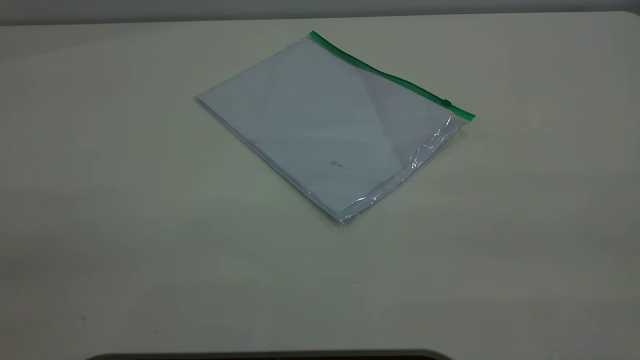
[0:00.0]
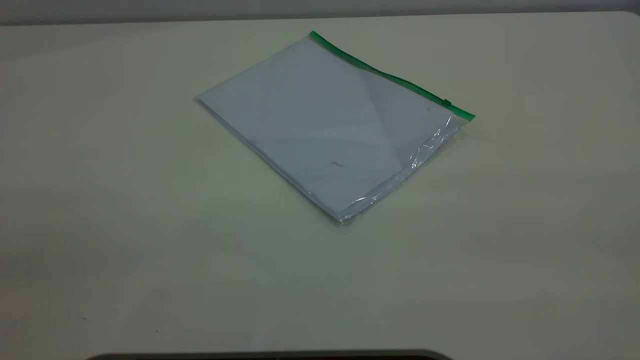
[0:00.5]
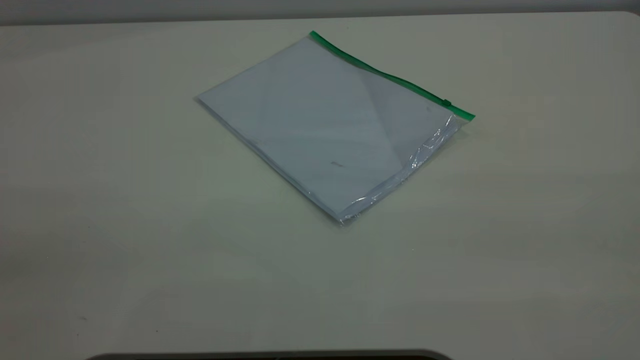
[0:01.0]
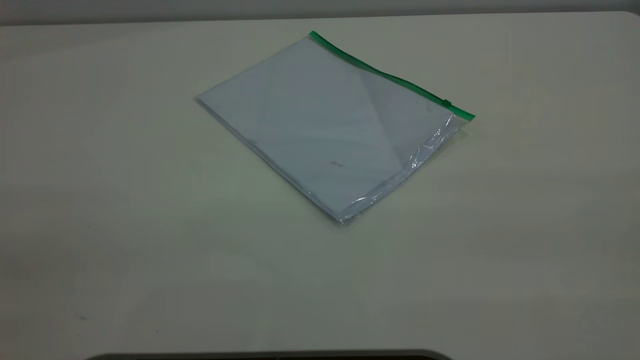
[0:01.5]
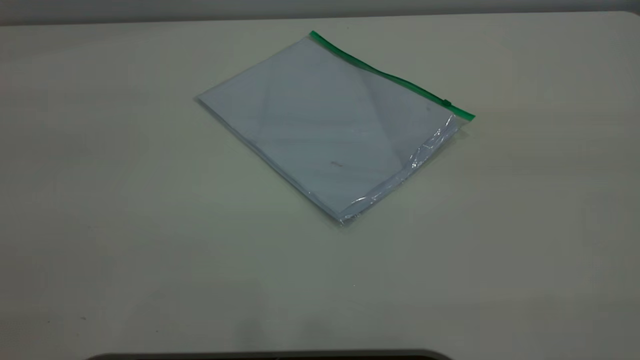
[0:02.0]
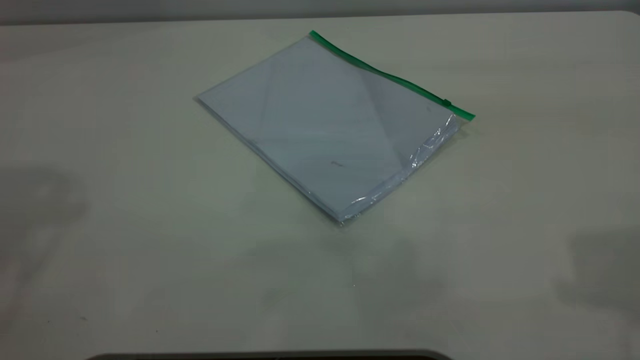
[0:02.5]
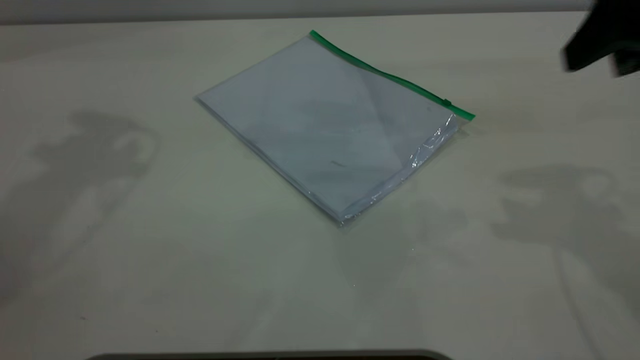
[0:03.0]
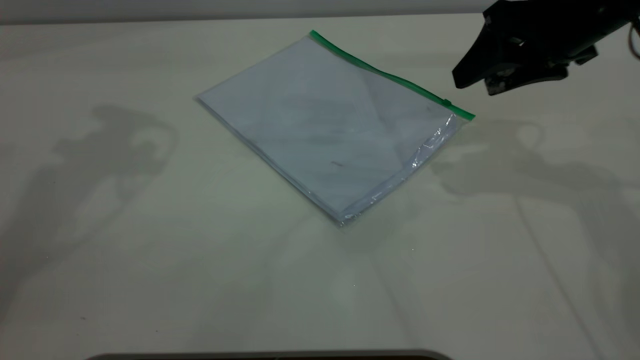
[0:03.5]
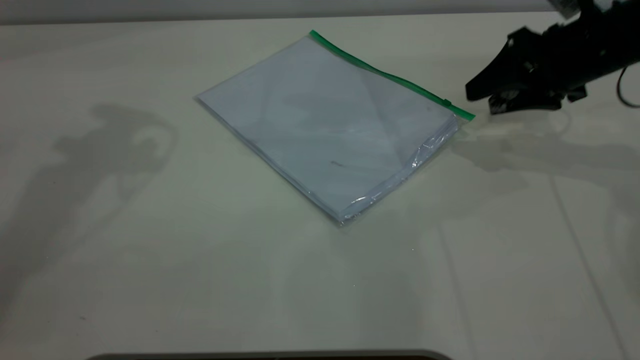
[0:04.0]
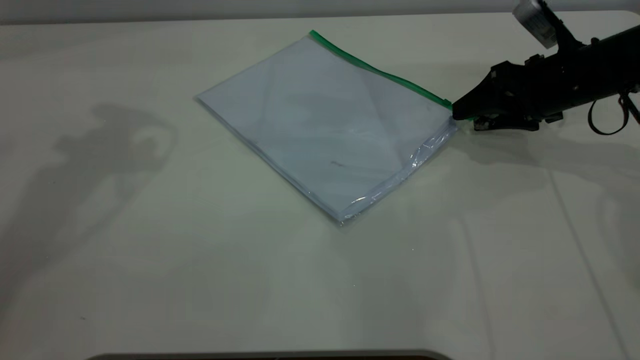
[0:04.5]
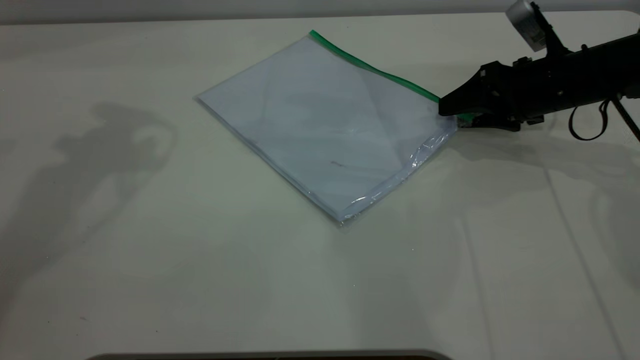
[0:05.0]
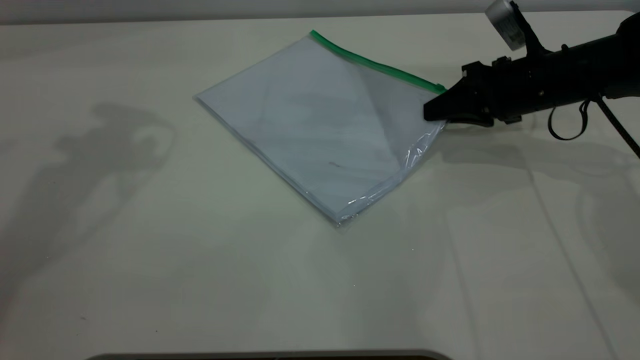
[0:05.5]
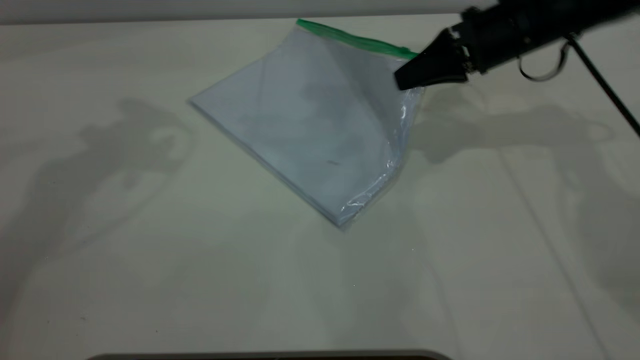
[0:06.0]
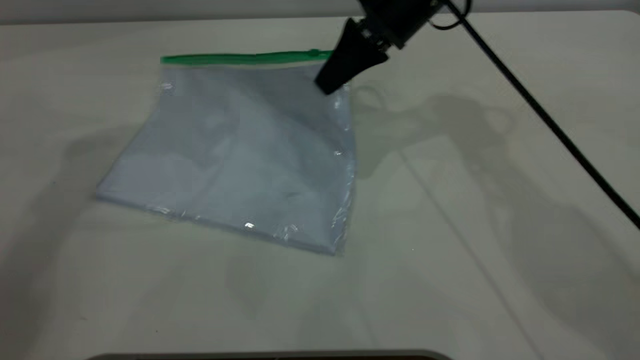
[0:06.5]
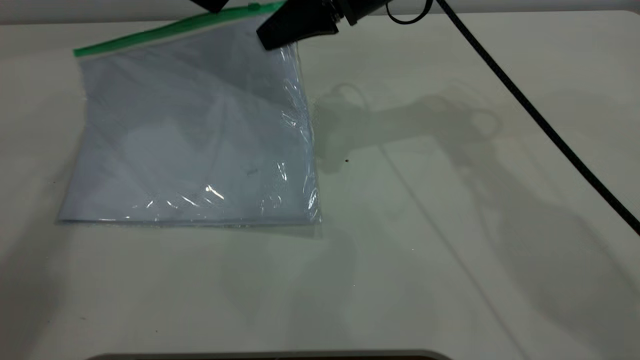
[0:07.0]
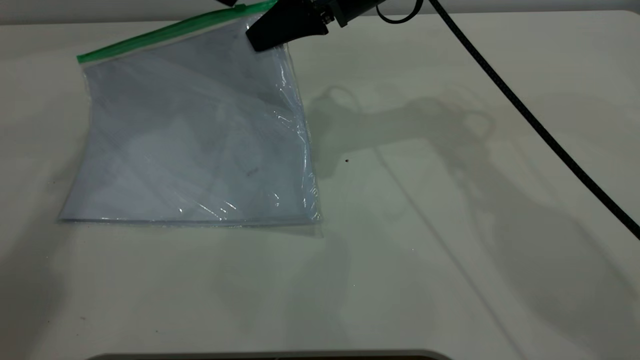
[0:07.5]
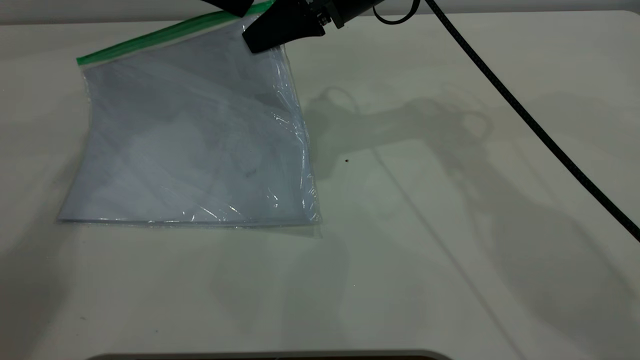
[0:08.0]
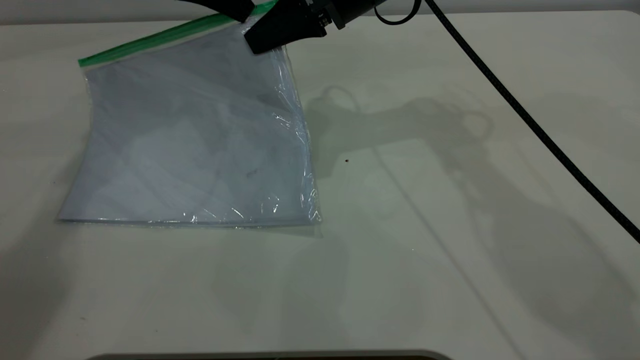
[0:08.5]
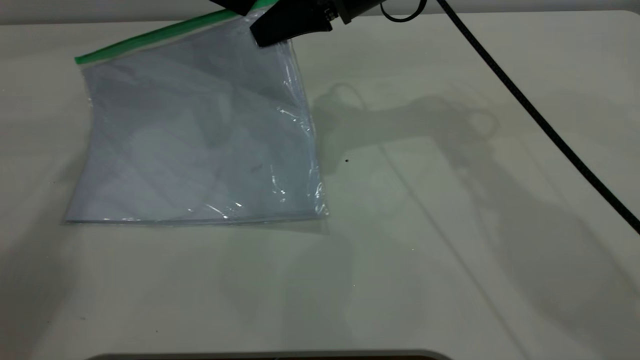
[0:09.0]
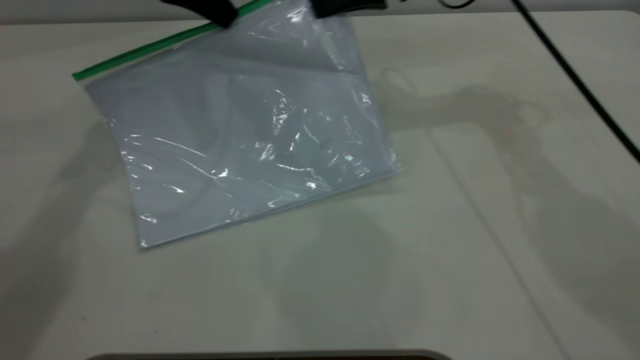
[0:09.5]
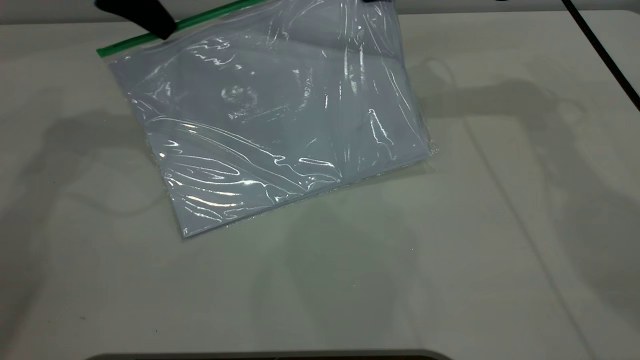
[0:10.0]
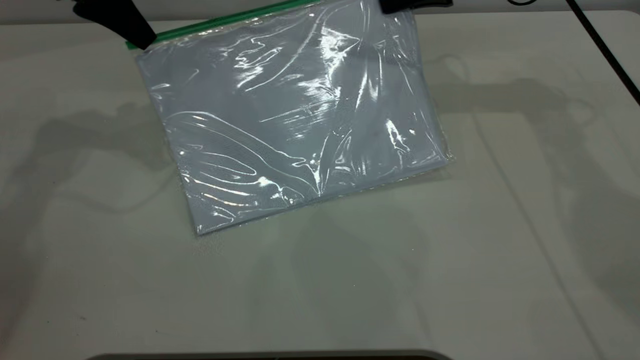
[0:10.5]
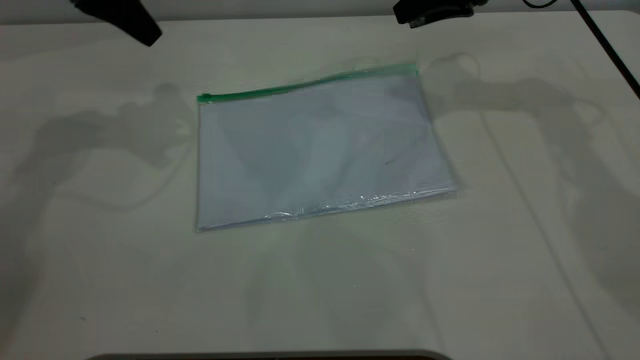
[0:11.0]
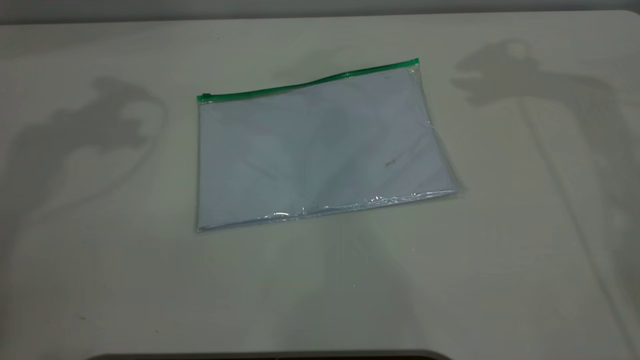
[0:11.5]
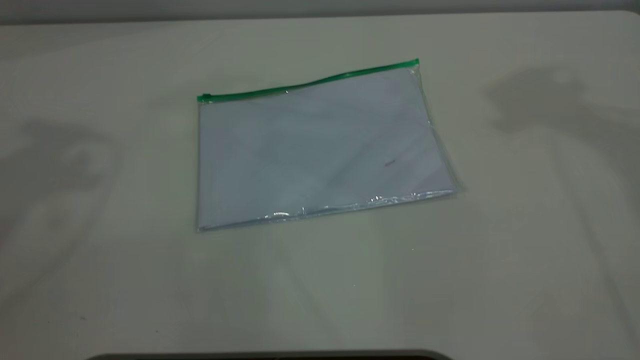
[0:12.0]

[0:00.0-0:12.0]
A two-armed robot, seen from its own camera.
Step, 0:00.0 to 0:06.5: Pick up the transparent plastic bag with the right gripper.
Step, 0:07.0 to 0:10.5: Pulling up the zipper on the transparent plastic bag with the left gripper to close it.
Step, 0:11.0 to 0:12.0: Place the transparent plastic bag.
0:02.0 to 0:04.0: The right gripper travels forward and downward by roughly 50 cm.
0:04.0 to 0:06.0: The right gripper shifts about 10 cm to the left and forward, and closes.
0:06.0 to 0:08.0: The right gripper travels to the left and upward by some 15 cm. The left gripper is displaced downward and to the right by about 10 cm.
0:08.0 to 0:10.0: The left gripper shifts approximately 5 cm to the left, and closes up. The right gripper travels to the right by roughly 15 cm.
0:10.0 to 0:12.0: The right gripper moves upward, about 35 cm, and opens; the left gripper moves upward and backward, about 30 cm, and opens its fingers.

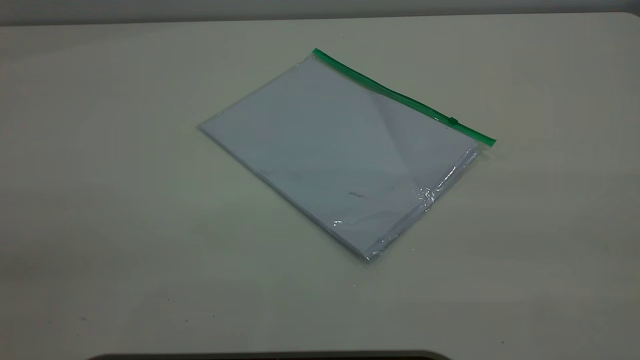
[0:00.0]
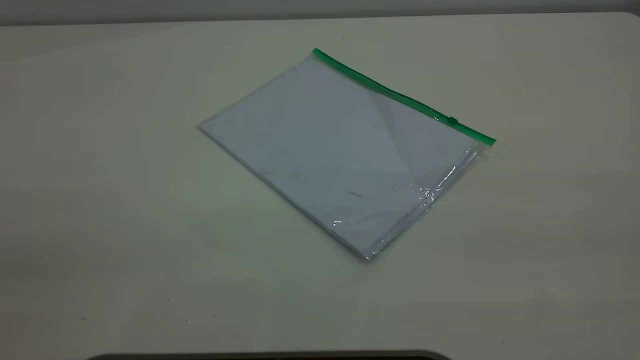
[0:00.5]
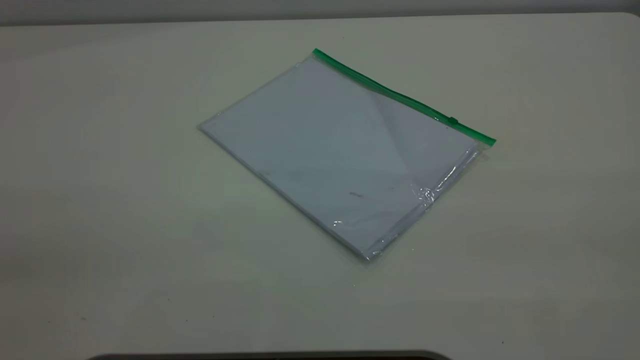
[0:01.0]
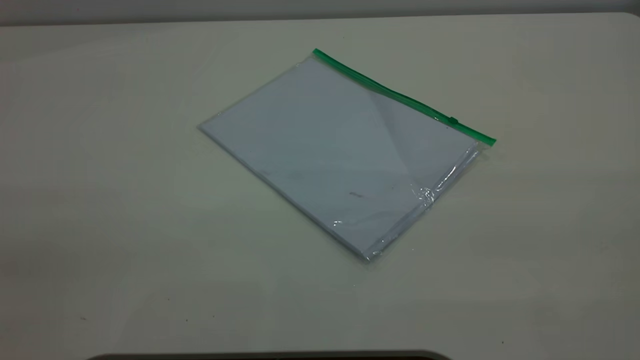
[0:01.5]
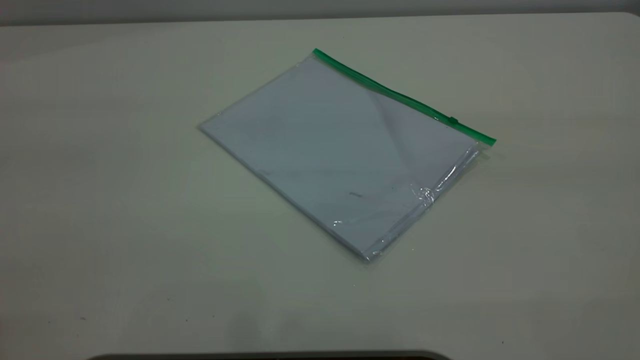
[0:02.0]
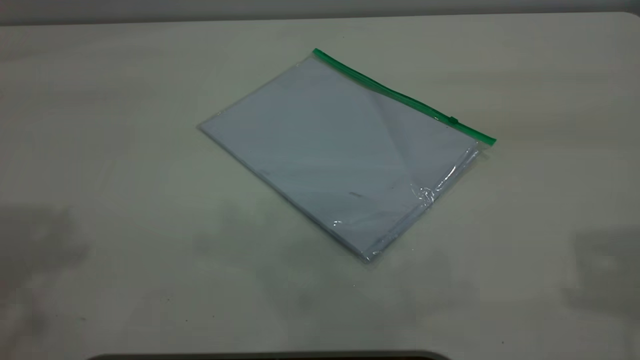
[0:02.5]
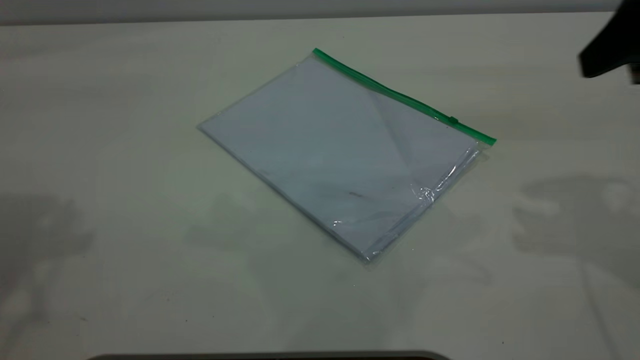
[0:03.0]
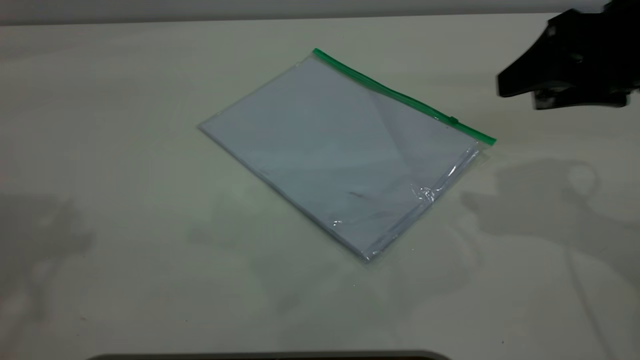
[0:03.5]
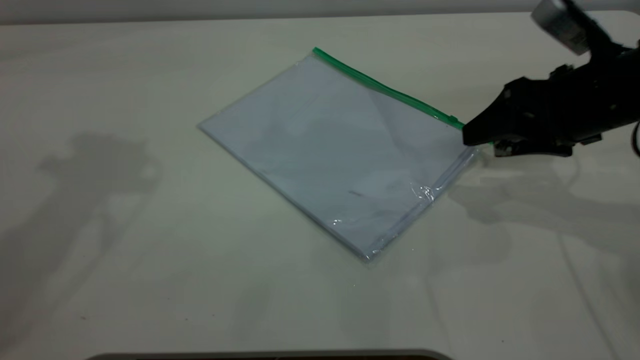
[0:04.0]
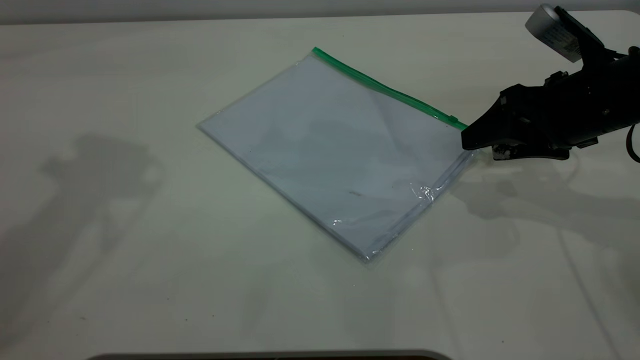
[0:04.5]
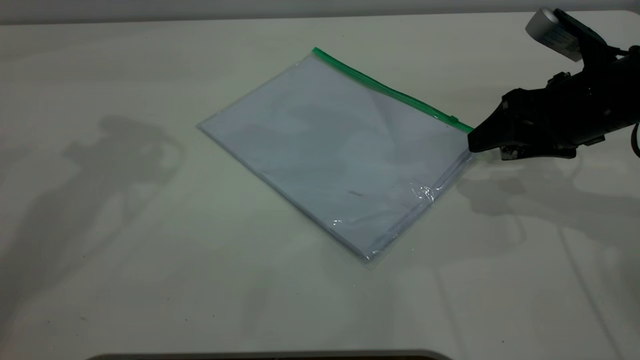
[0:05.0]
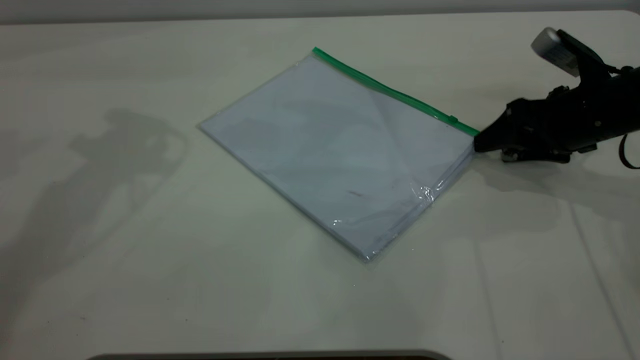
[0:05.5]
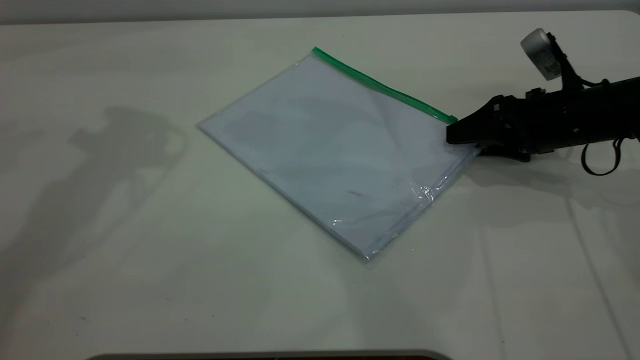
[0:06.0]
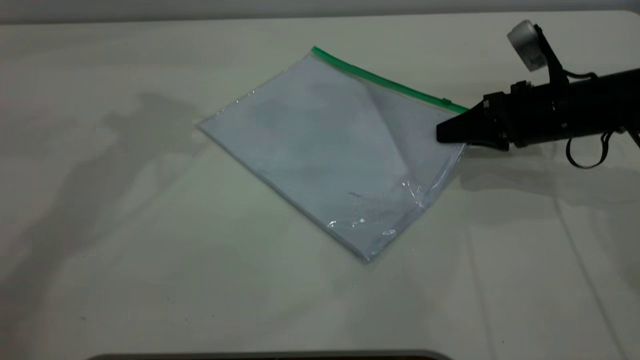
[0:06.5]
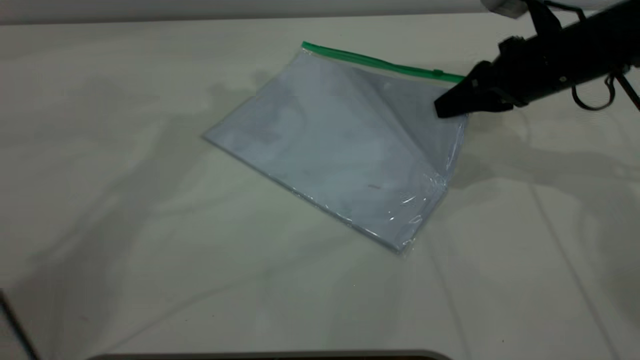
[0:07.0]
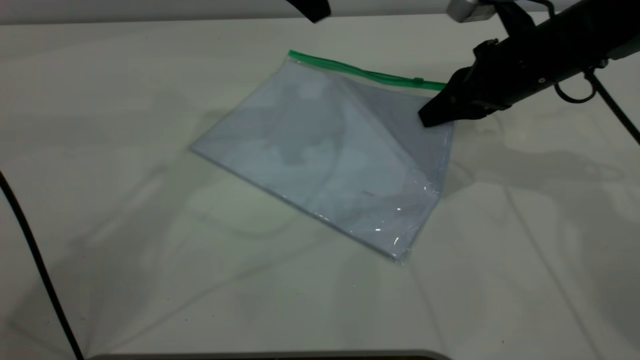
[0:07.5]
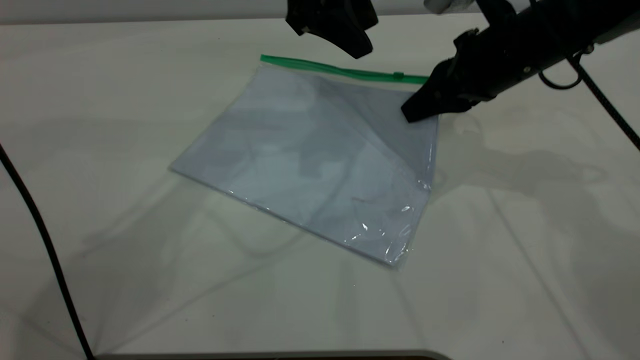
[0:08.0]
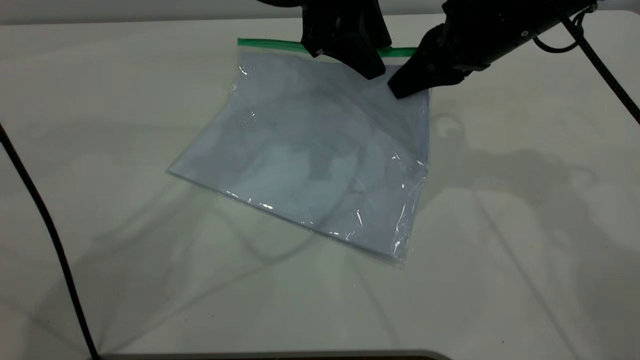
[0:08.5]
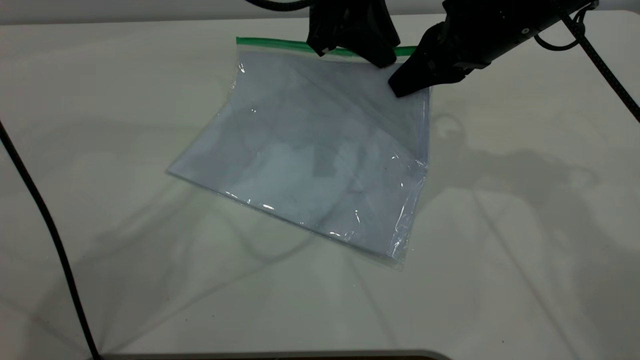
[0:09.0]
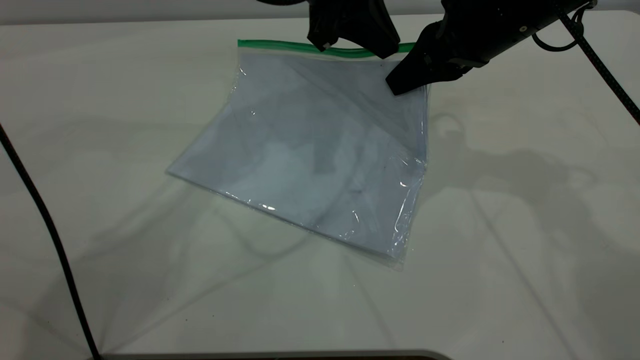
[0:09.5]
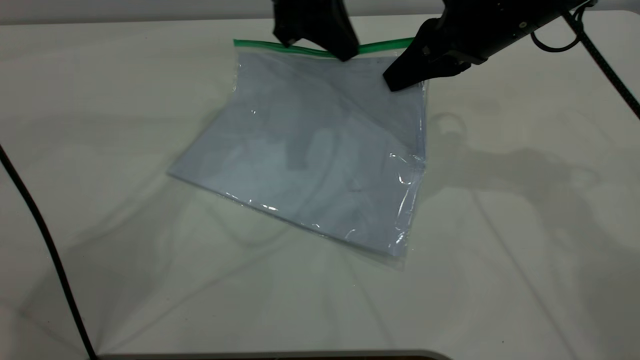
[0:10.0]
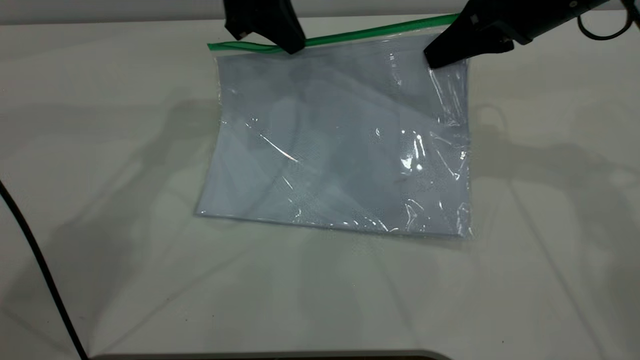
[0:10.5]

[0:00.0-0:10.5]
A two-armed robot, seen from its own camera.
Step, 0:00.0 to 0:07.0: Pick up the transparent plastic bag with the right gripper.
0:02.0 to 0:04.0: The right gripper goes about 40 cm downward and forward.
0:04.0 to 0:06.5: The right gripper heads downward and forward, covering roughly 10 cm, and closes its fingers.
0:06.5 to 0:08.5: The left gripper moves to the right and downward, approximately 20 cm. Meanwhile the right gripper shifts approximately 15 cm upward and to the left.
0:08.5 to 0:10.5: The right gripper shifts by approximately 5 cm, while the left gripper shifts approximately 10 cm to the left, and closes.
